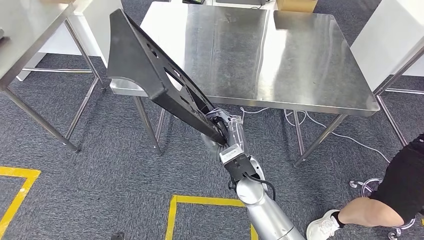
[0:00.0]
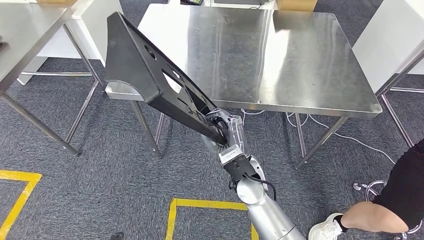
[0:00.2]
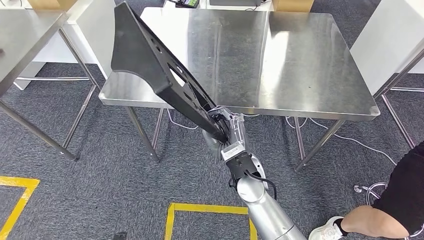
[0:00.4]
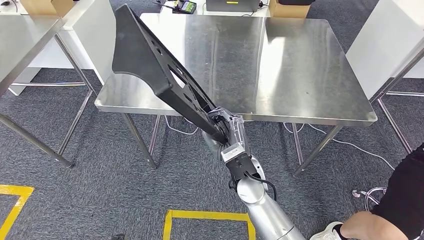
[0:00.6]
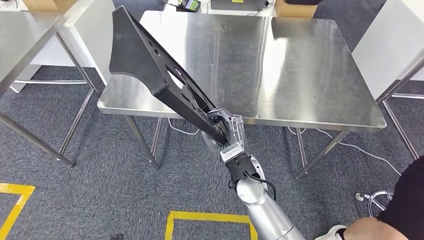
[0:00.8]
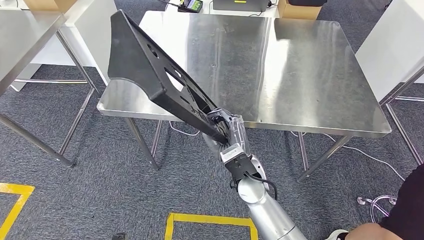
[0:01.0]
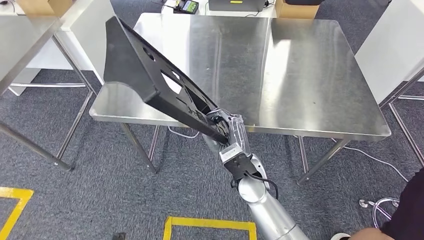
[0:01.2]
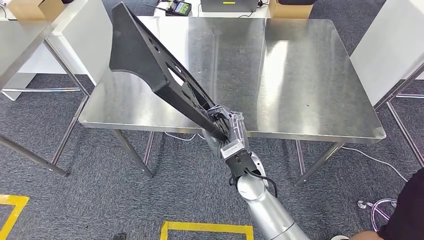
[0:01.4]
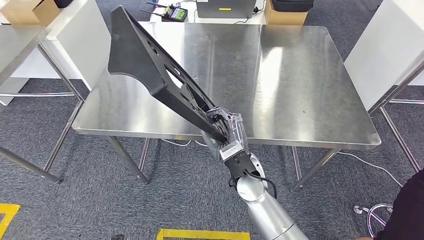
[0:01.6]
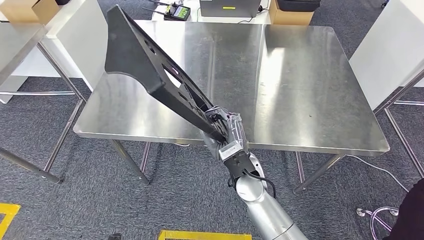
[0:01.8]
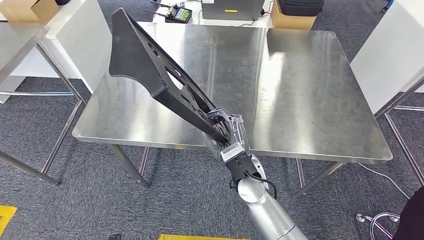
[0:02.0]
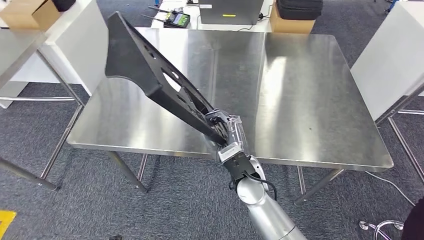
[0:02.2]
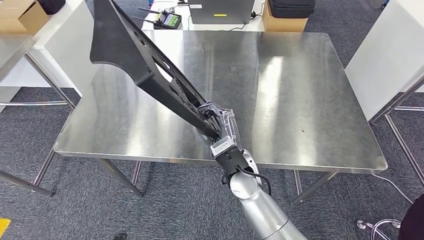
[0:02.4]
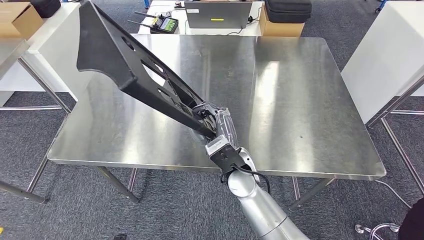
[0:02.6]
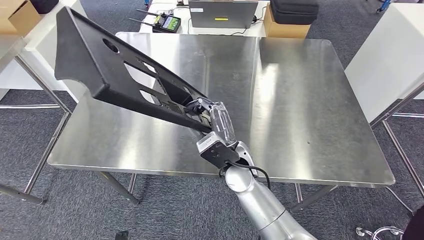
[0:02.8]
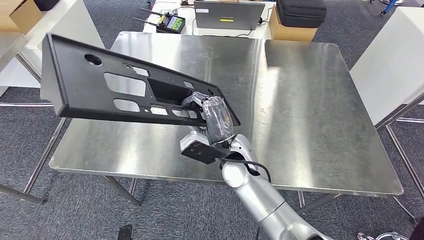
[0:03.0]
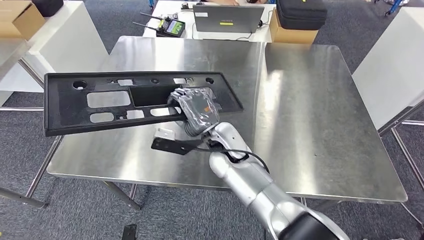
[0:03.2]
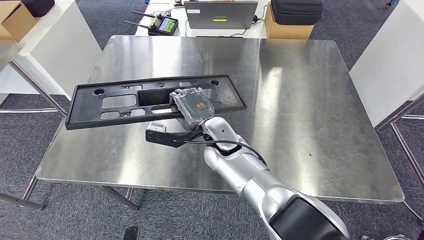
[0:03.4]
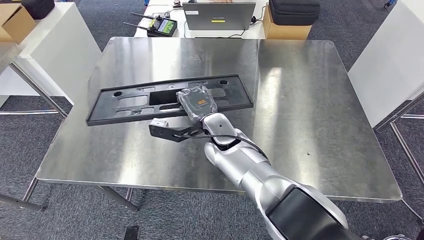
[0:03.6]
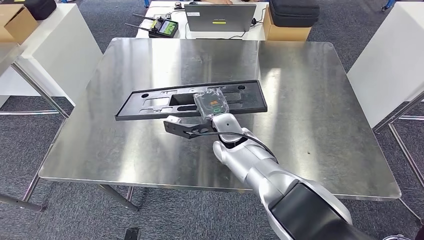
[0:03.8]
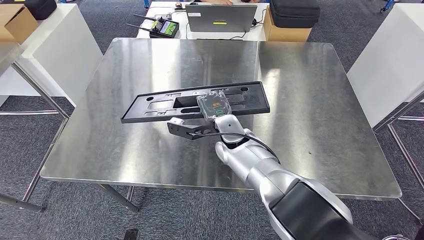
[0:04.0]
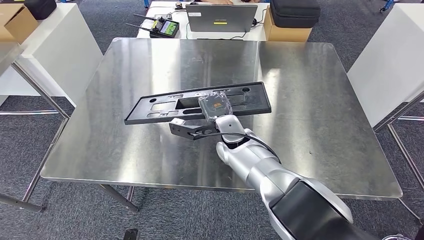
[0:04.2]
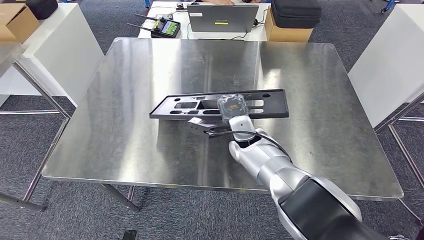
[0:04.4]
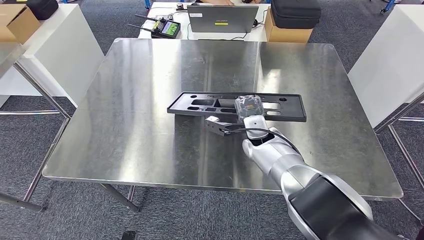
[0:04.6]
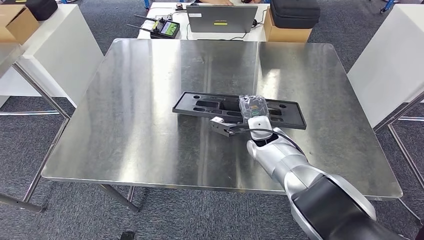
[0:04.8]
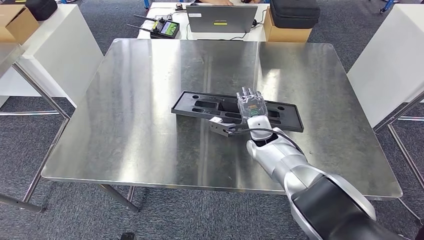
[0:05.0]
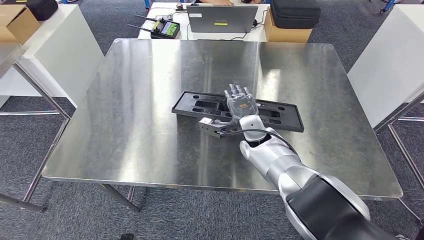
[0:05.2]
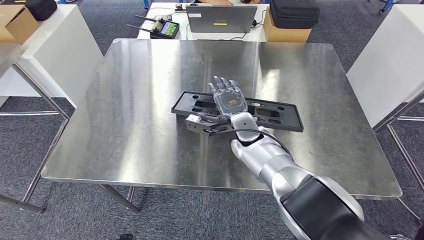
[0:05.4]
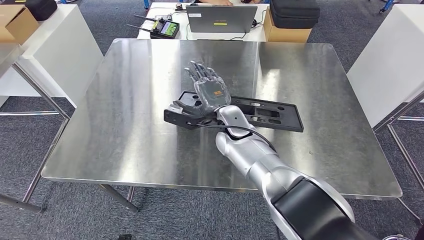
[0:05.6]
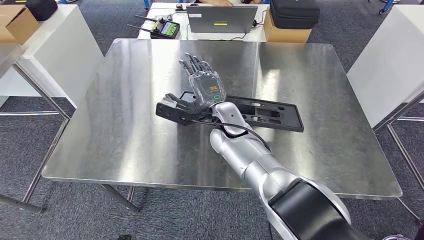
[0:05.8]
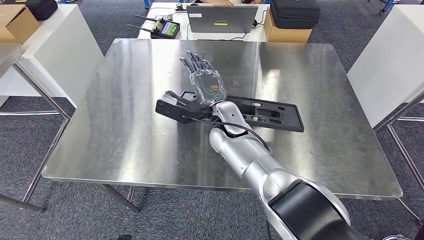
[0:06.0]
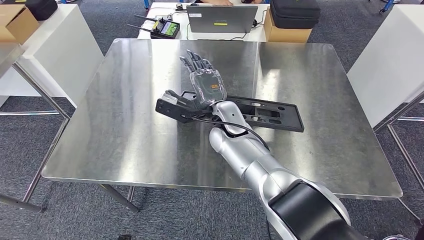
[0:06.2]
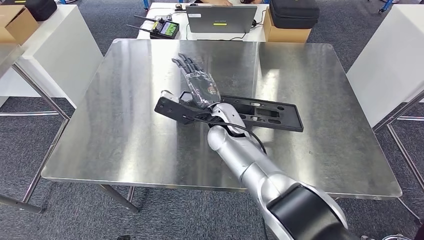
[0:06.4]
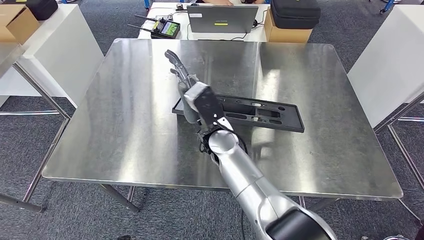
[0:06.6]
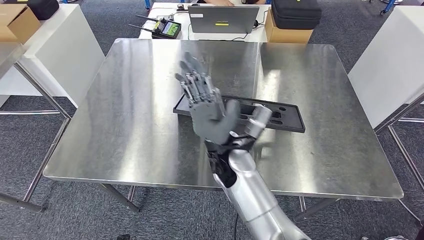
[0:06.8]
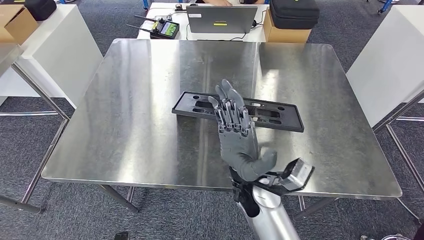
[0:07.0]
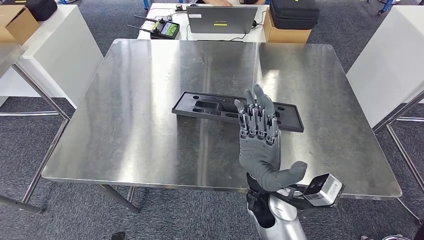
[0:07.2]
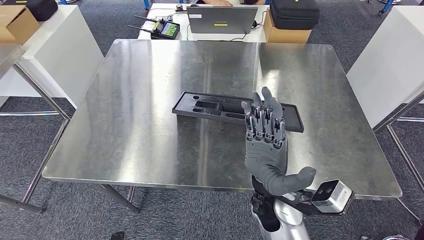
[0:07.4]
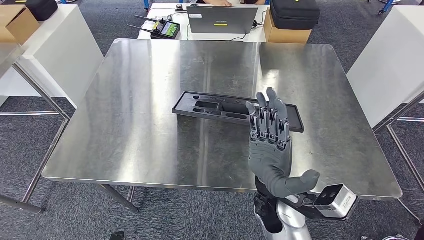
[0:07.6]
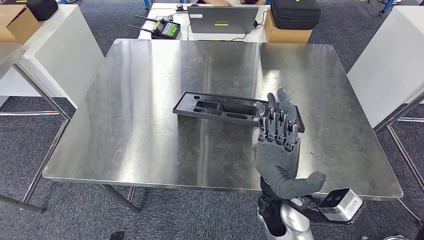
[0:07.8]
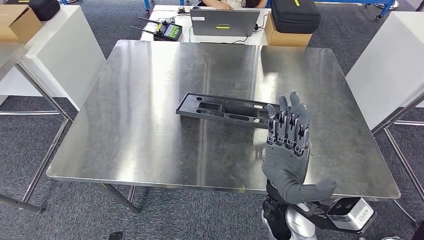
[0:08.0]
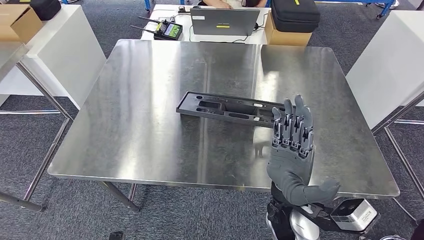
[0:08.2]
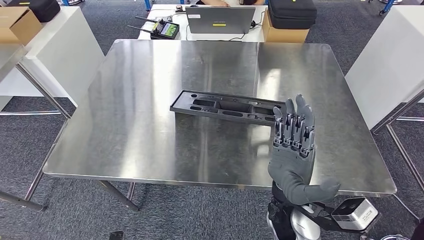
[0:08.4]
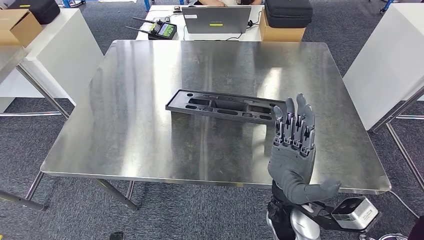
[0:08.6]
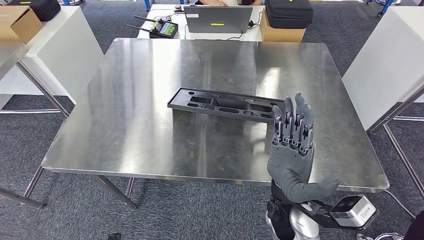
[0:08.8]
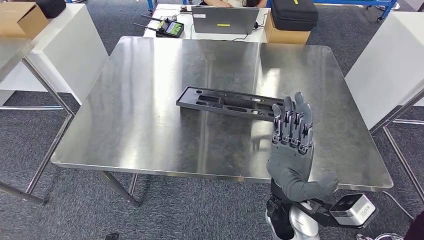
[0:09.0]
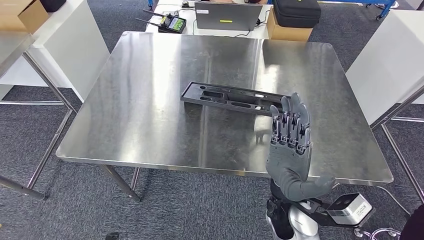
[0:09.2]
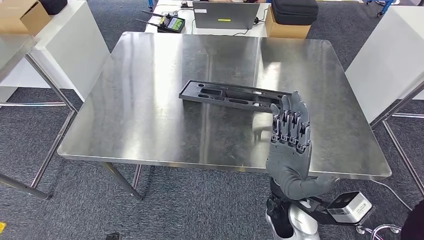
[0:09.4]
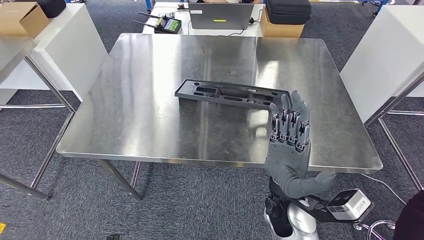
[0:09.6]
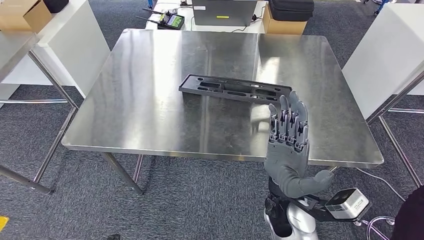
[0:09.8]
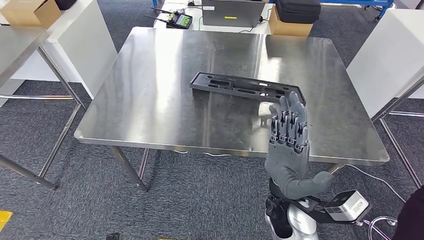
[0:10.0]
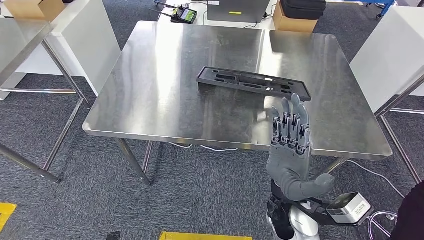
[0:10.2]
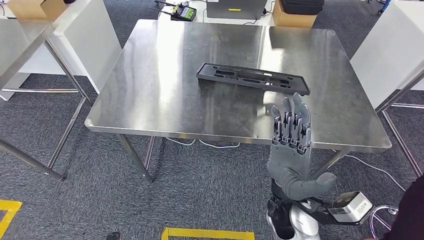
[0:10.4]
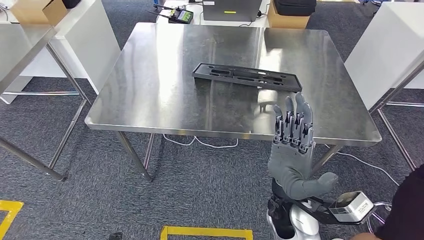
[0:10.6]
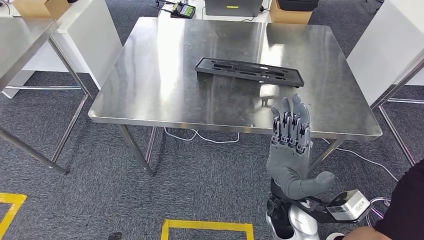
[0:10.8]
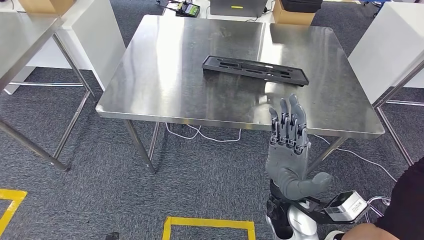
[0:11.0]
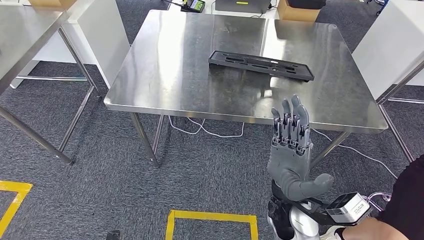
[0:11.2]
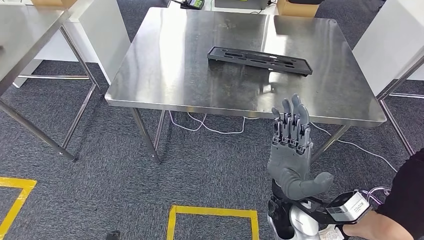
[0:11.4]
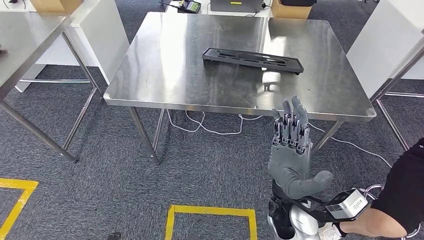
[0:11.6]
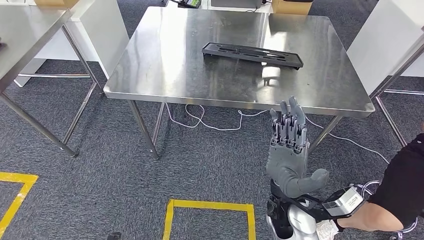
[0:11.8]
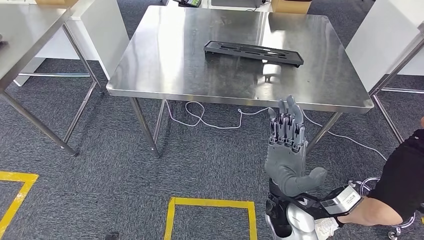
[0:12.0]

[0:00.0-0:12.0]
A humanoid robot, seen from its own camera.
Step, 0:00.0 to 0:11.4: Insert the large material into the corresponding hole on the workbench.
0:04.4 to 0:06.0: The right hand shifts some 5 cm upward.
0:06.0 to 0:07.6: The right hand moves backward and to the right, about 20 cm.

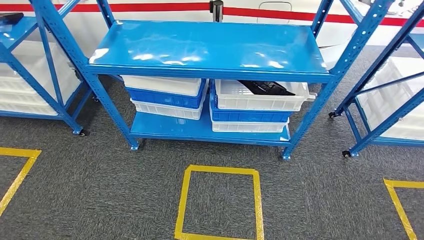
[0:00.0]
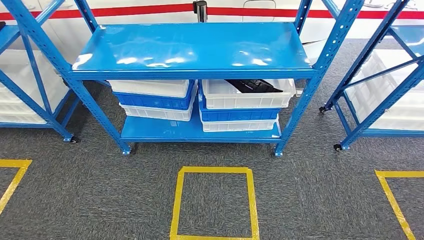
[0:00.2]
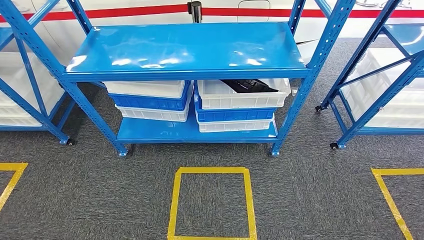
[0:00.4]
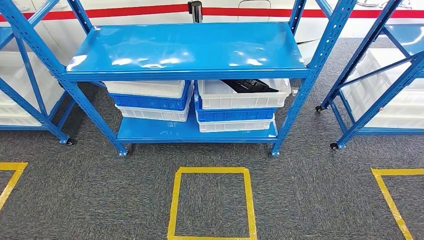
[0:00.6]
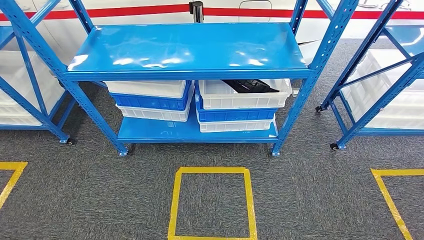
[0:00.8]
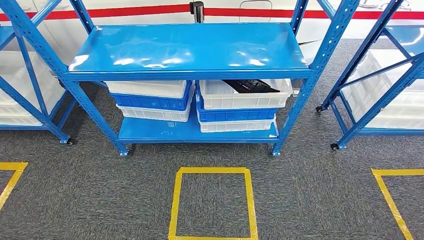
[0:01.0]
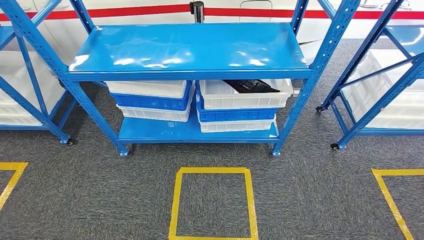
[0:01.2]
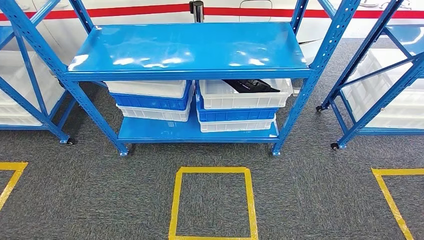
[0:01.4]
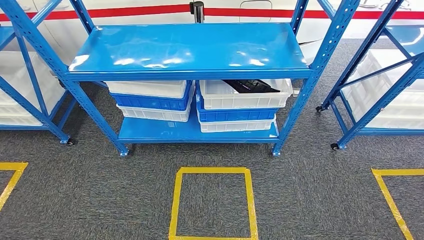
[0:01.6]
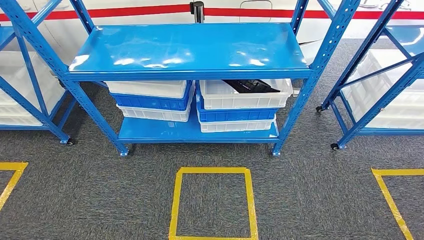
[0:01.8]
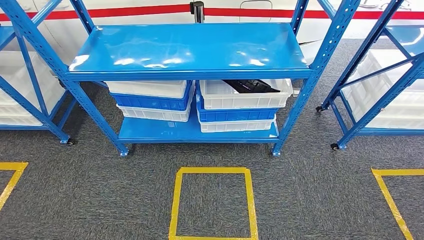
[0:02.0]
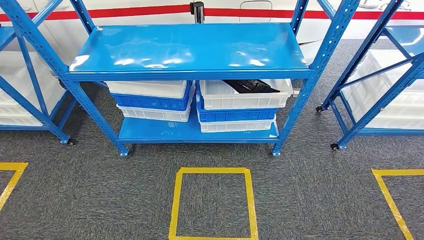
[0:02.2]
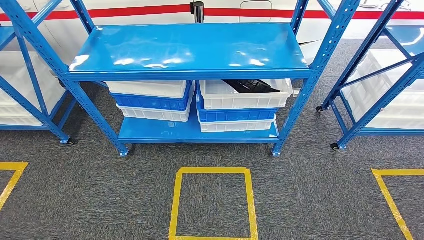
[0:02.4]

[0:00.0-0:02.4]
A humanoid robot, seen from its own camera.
Step, 0:00.0 to 0:02.4: Move to the initial position of the shelf.
